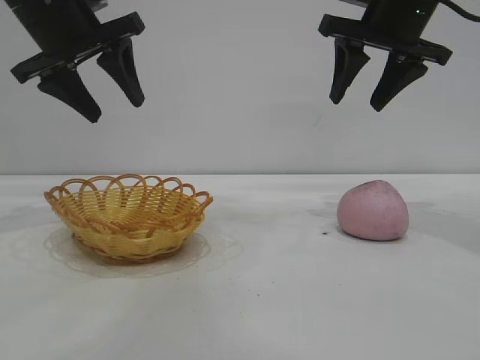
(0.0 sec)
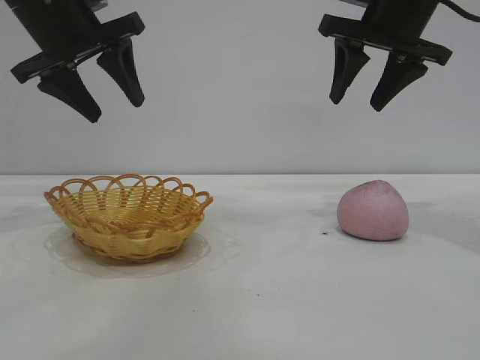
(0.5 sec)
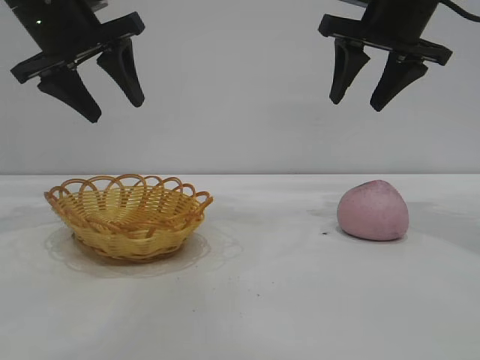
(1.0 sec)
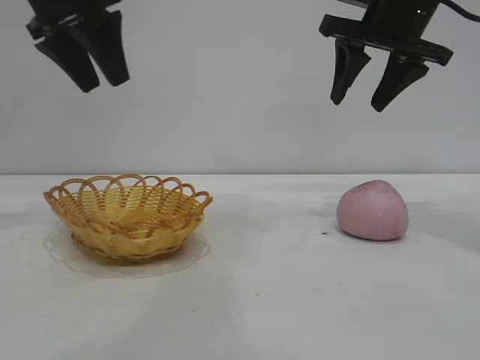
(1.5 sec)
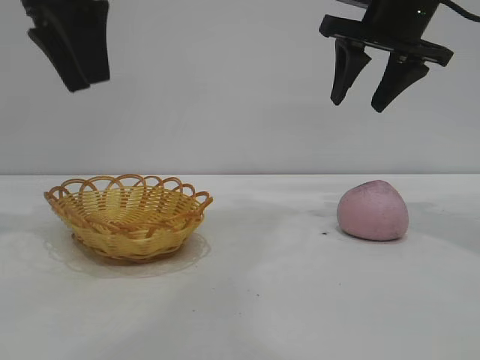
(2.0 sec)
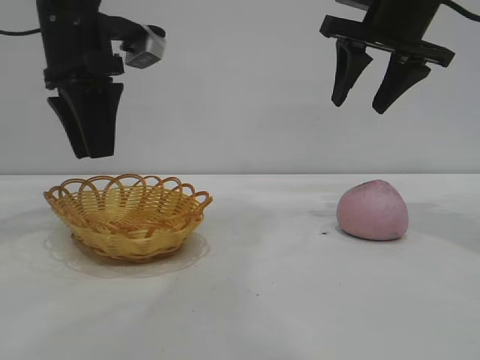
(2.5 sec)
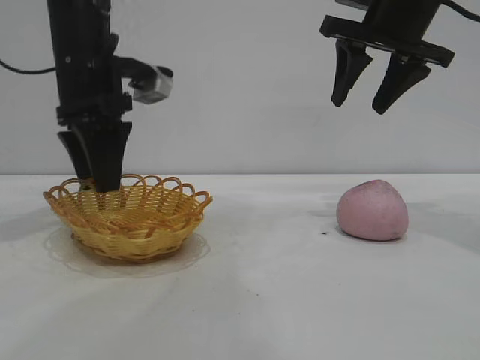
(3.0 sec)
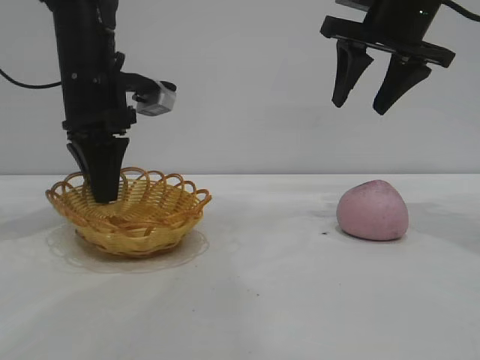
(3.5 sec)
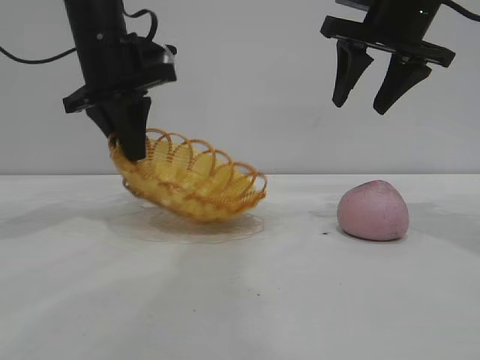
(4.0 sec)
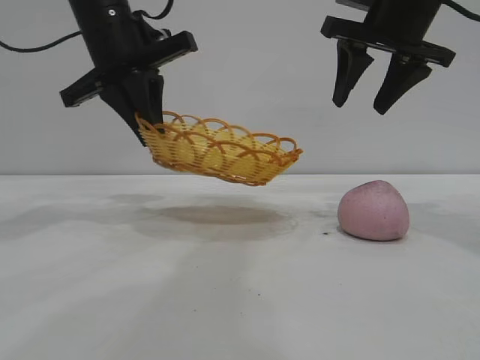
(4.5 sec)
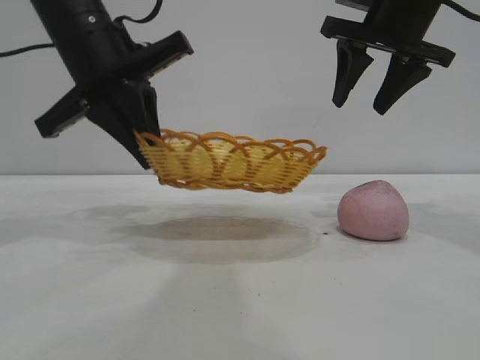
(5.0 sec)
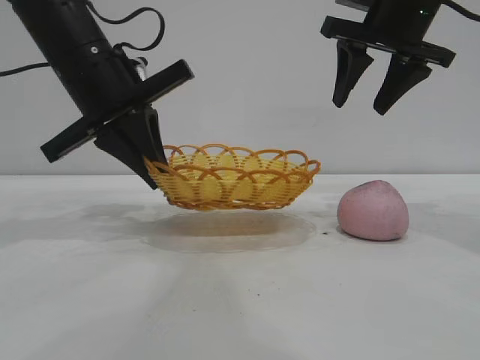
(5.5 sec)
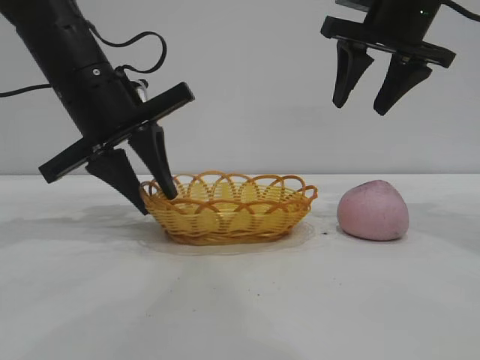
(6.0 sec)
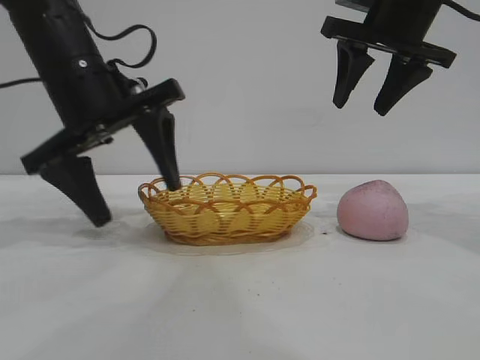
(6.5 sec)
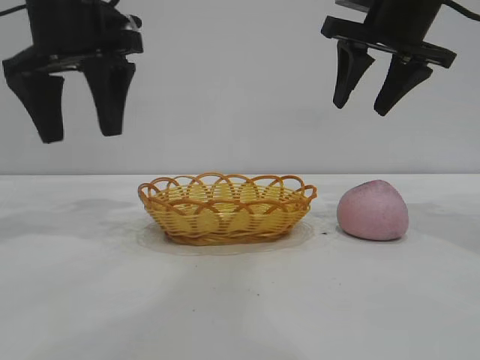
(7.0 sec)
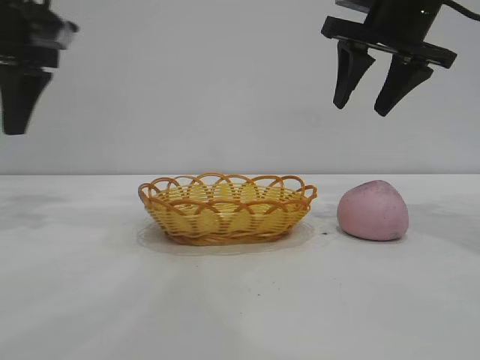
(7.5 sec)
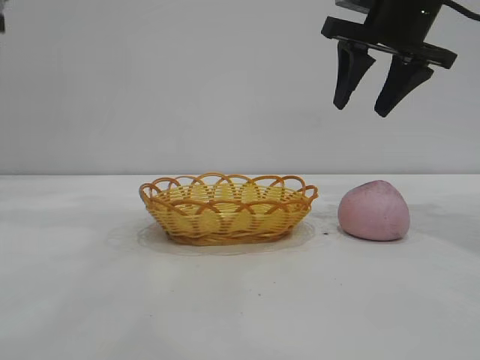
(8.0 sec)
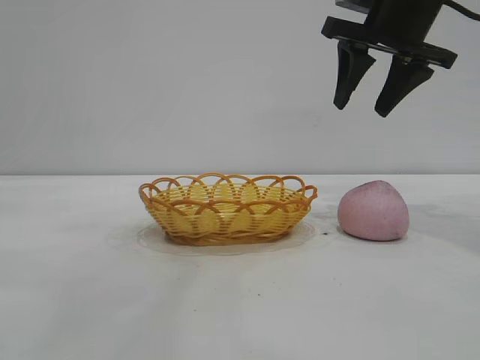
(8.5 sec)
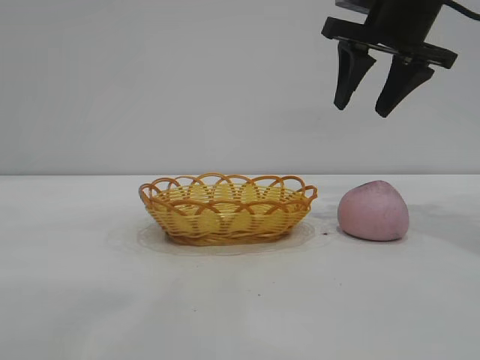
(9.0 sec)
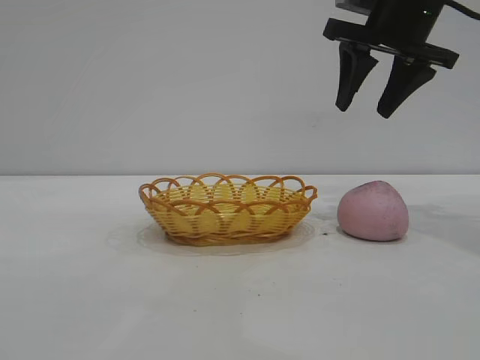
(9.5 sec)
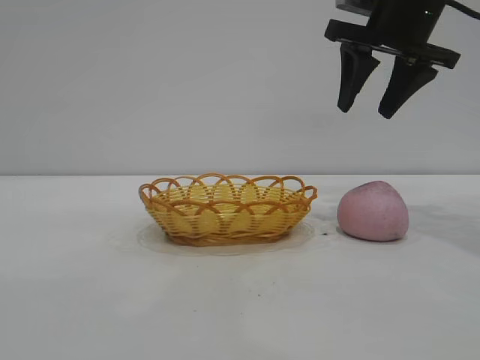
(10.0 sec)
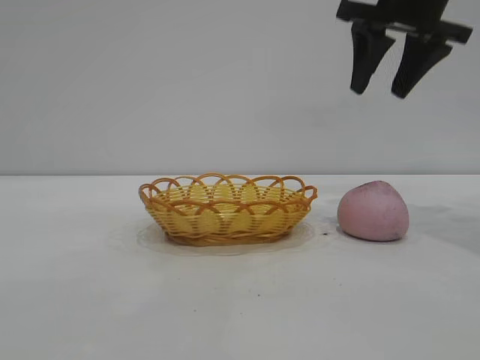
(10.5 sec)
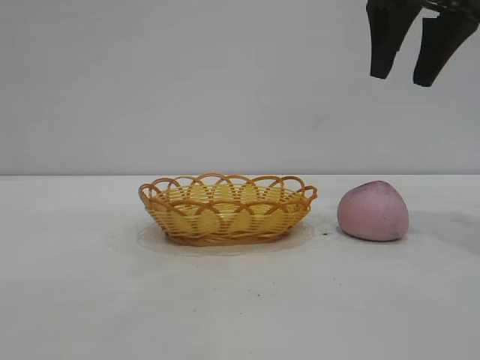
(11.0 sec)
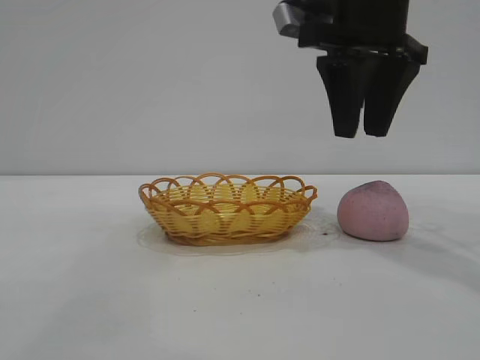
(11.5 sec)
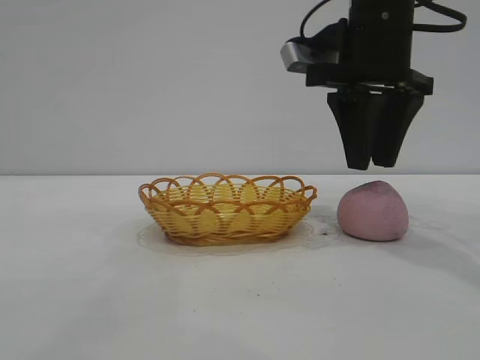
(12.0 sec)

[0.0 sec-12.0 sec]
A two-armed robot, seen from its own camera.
Task of the whole recording: pick up the peach and put it into the basket.
Step, 0.0 sec to 6.5 sec: Move the basket to the center of view.

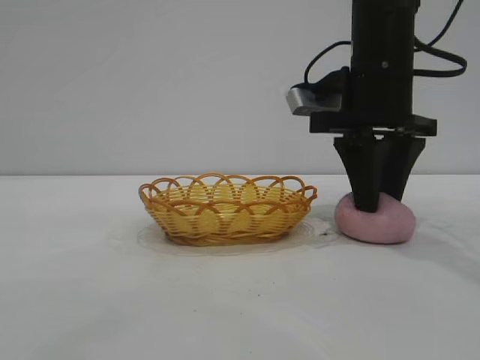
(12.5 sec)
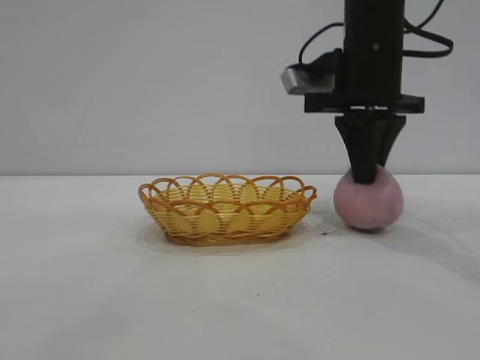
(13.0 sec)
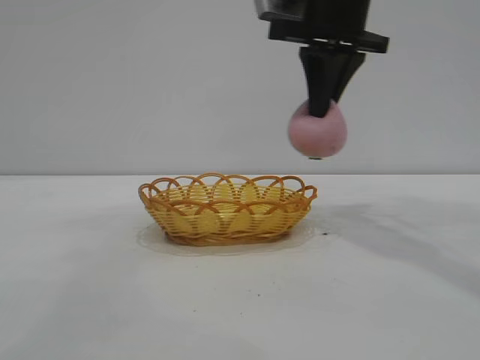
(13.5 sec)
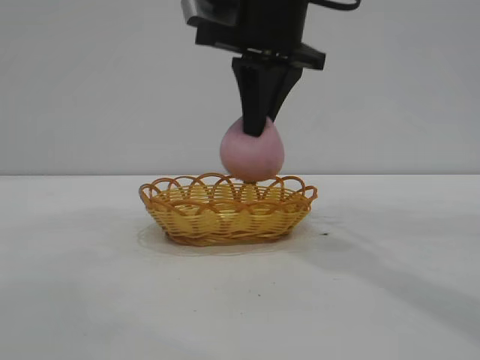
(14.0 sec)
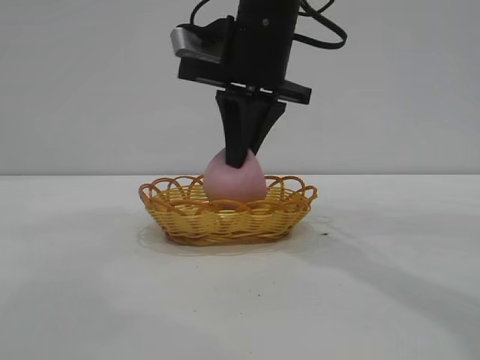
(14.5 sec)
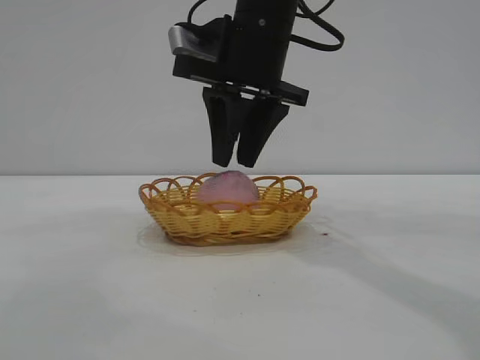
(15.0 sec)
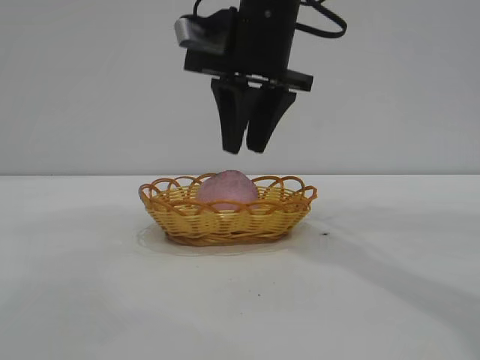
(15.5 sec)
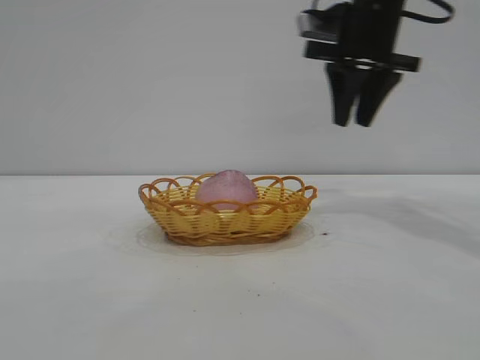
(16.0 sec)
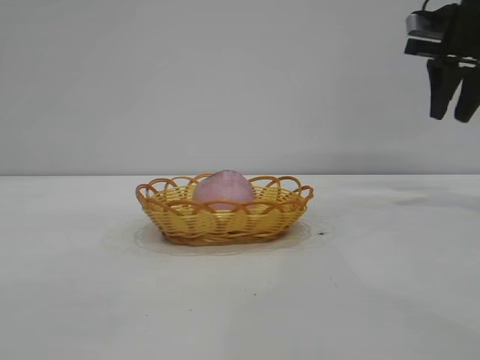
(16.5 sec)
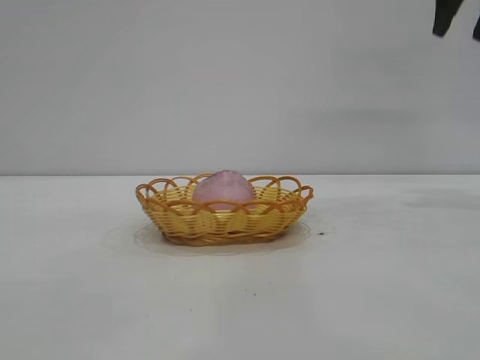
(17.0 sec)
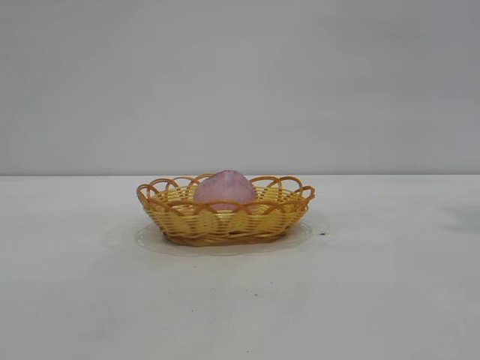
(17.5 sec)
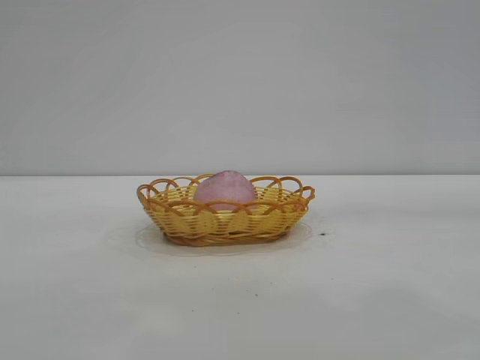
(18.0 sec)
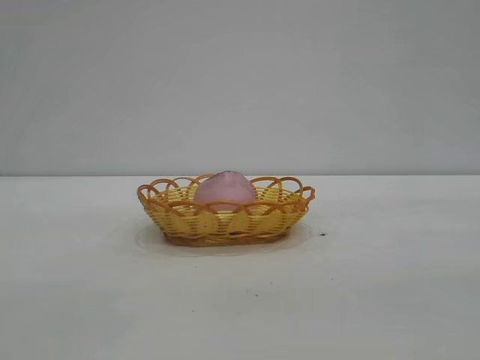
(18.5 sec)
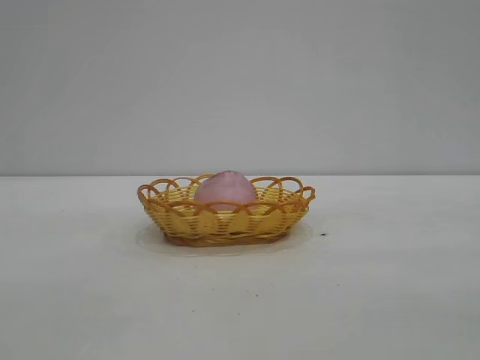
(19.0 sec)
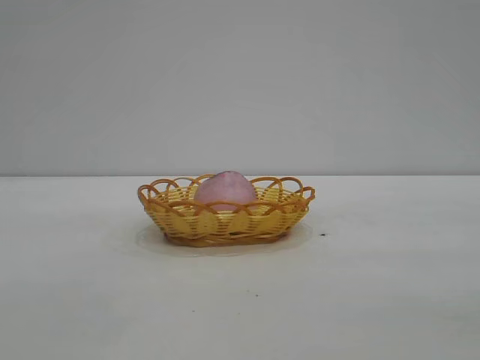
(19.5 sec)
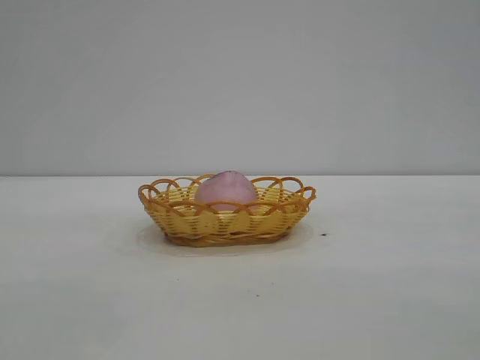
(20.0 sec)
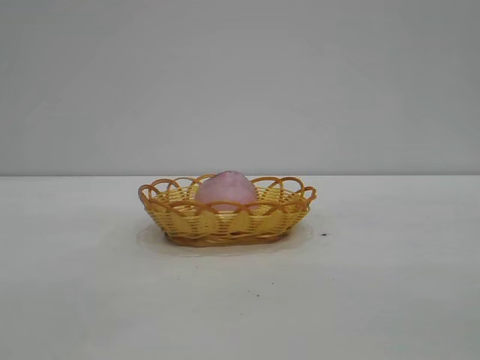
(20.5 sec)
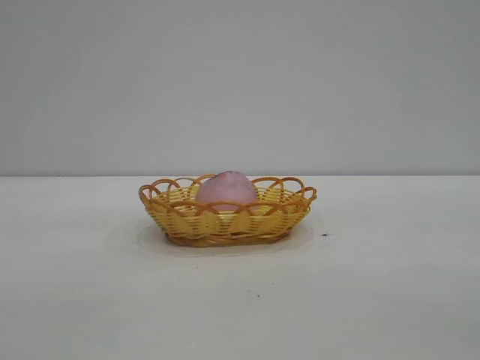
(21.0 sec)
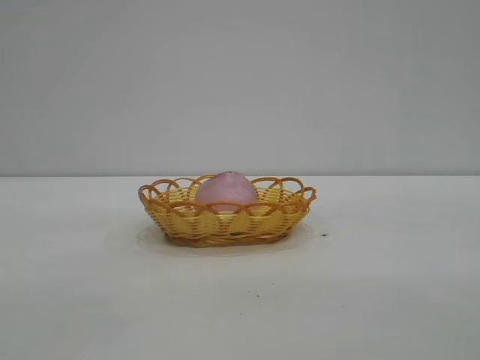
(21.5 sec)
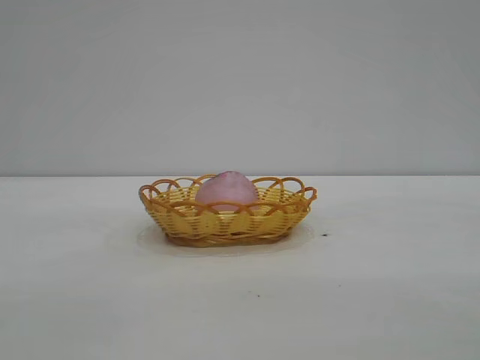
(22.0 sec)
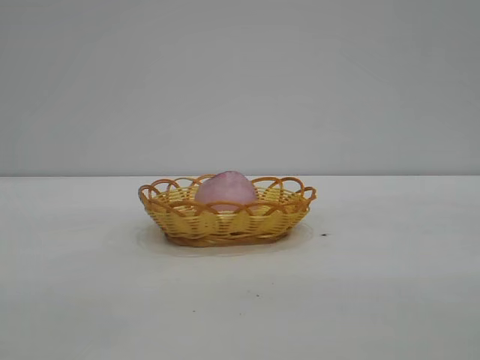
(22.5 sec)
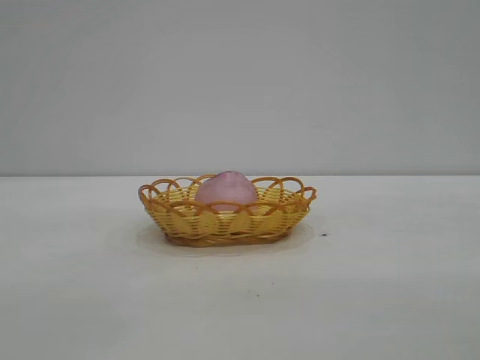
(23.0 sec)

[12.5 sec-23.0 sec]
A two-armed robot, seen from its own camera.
Task of the whole recording: pick up the peach and put it into the basket.
Step, 13.5 sec to 15.5 sec: place the peach into the basket.
